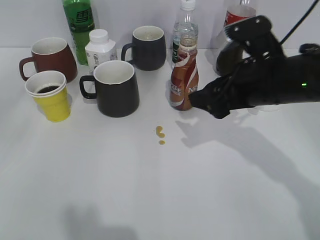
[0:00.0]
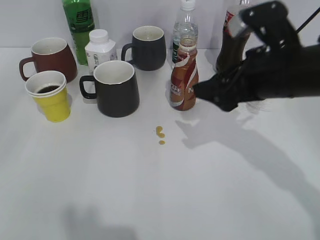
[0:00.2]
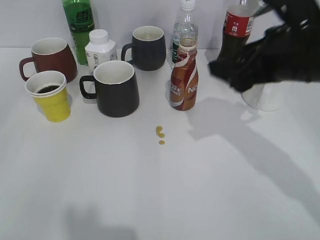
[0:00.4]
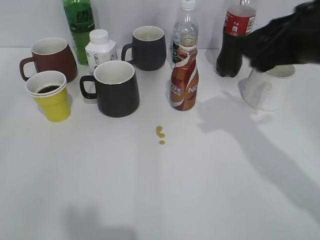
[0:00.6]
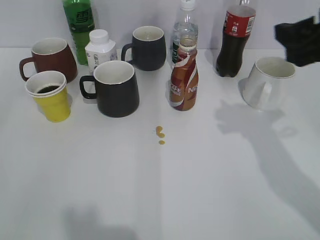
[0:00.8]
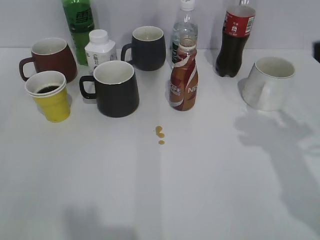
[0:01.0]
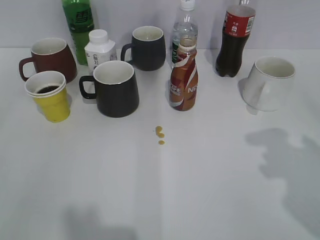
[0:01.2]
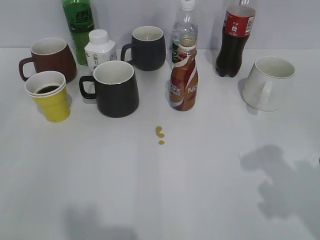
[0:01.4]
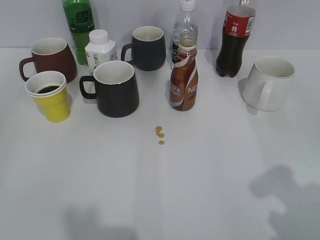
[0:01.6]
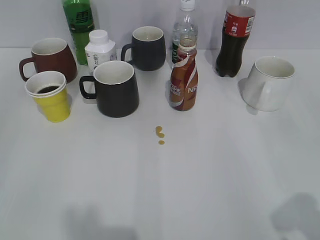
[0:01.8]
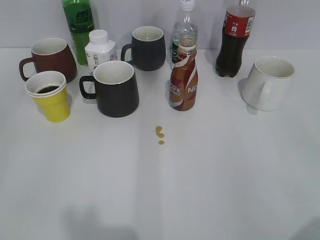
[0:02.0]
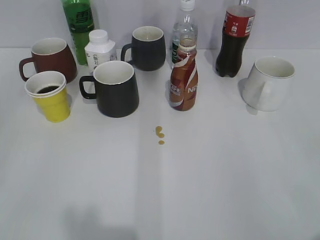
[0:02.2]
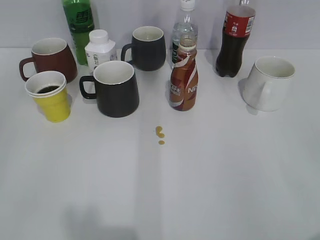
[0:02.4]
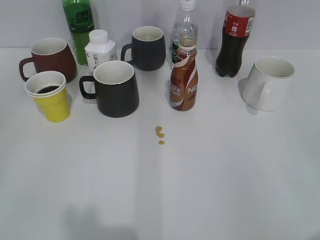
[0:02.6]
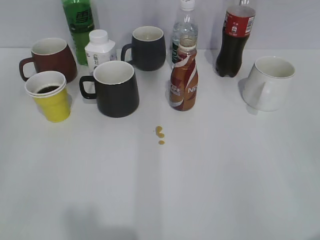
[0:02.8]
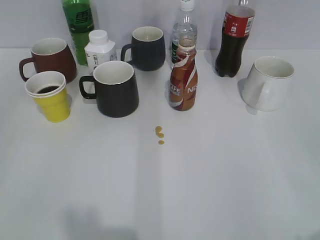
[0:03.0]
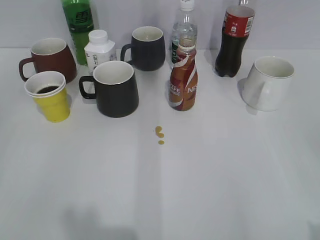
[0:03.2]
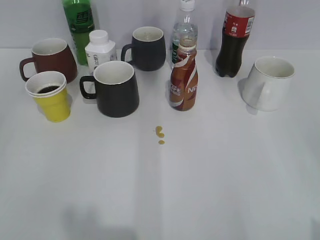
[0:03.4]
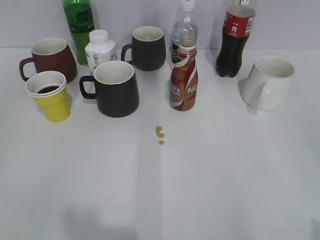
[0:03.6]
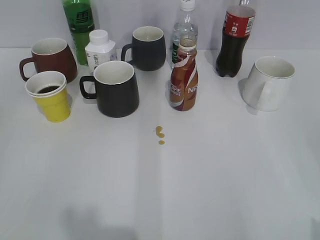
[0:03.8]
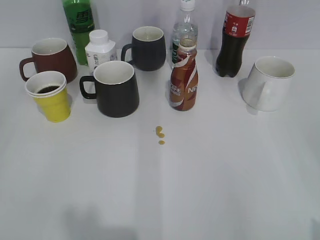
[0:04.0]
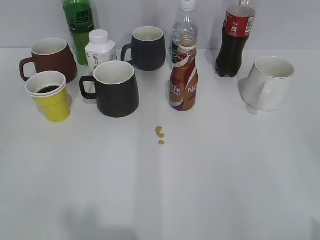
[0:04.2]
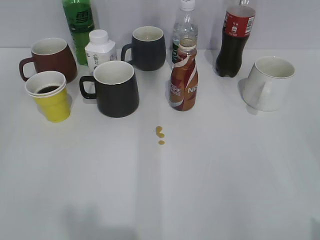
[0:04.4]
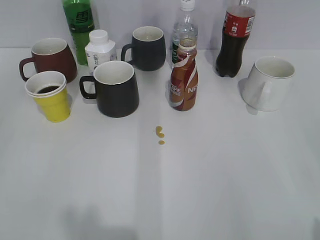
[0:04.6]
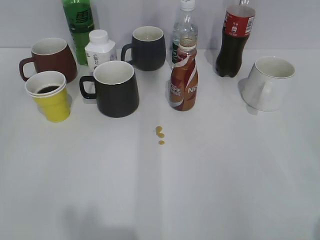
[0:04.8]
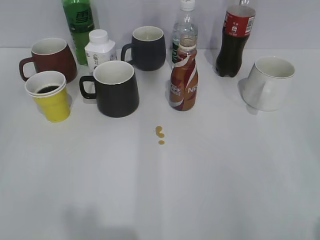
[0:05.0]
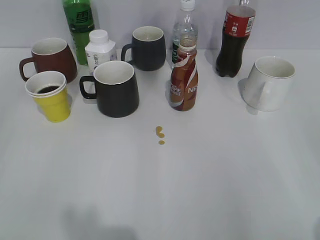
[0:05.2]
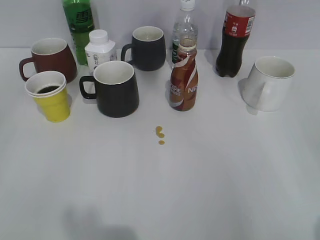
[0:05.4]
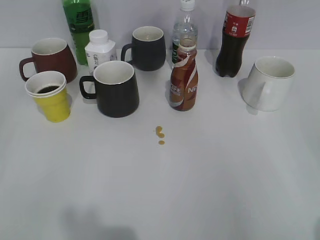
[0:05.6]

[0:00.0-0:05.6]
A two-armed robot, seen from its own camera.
0:00.0 to 0:01.4: The right gripper is displaced backward, to the right and upward by approximately 20 cm. Meanwhile the left gripper heads backward, covering roughly 10 cm.
0:01.4 to 0:02.8: The right gripper moves backward, roughly 15 cm.
0:04.2 to 0:05.6: Both grippers stay put.

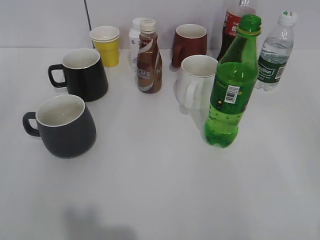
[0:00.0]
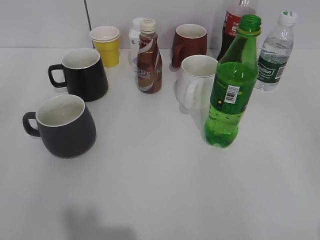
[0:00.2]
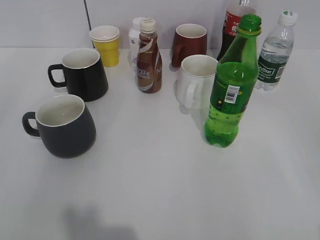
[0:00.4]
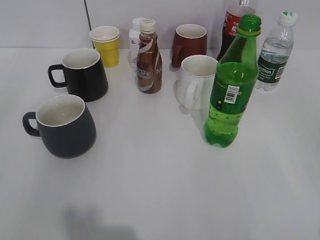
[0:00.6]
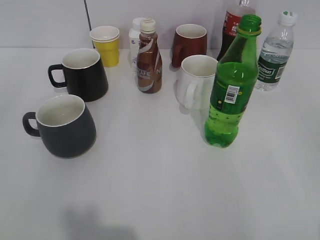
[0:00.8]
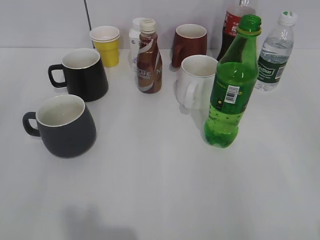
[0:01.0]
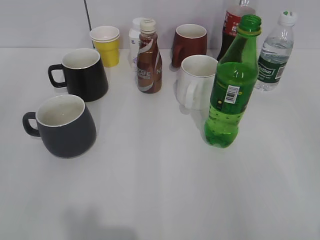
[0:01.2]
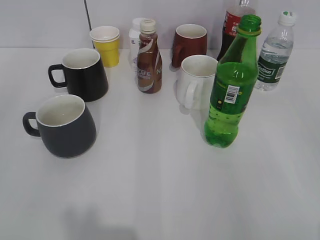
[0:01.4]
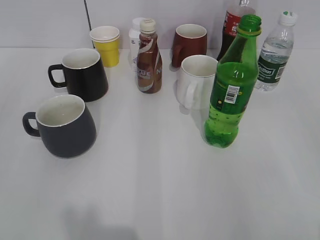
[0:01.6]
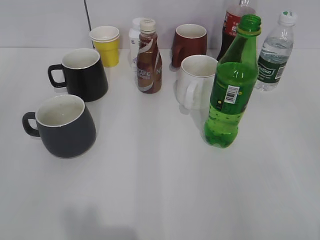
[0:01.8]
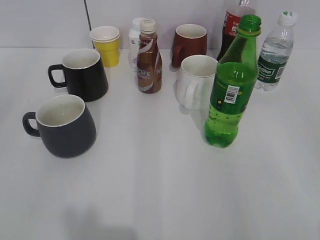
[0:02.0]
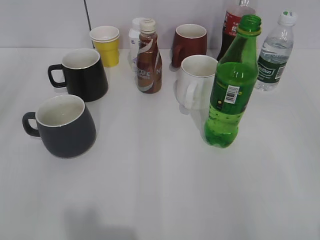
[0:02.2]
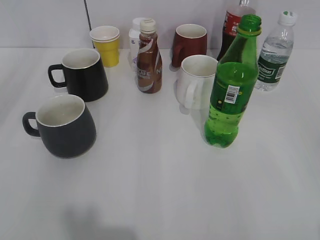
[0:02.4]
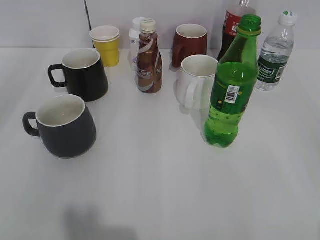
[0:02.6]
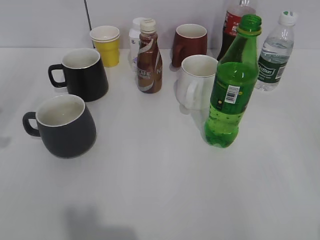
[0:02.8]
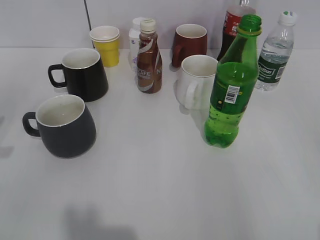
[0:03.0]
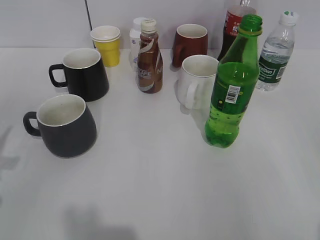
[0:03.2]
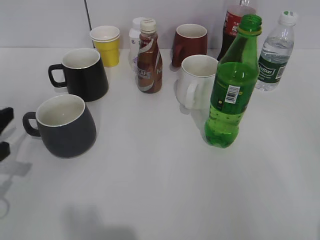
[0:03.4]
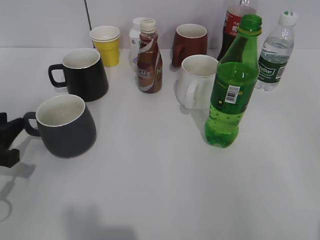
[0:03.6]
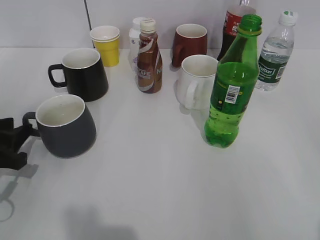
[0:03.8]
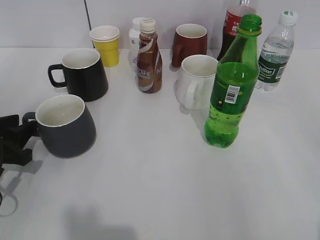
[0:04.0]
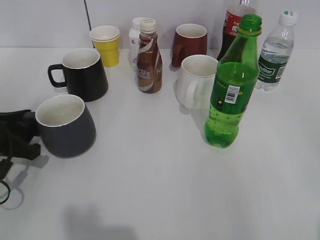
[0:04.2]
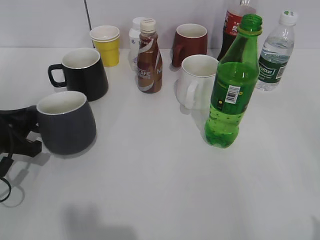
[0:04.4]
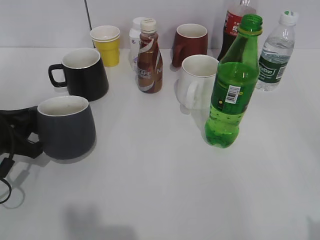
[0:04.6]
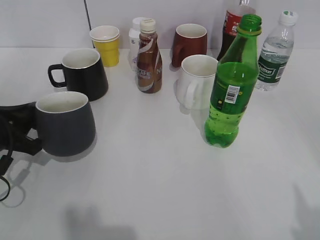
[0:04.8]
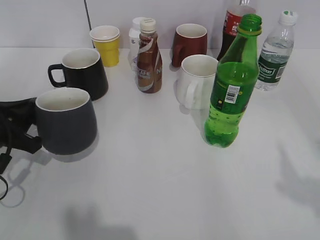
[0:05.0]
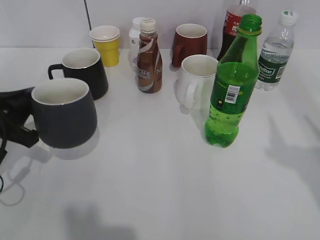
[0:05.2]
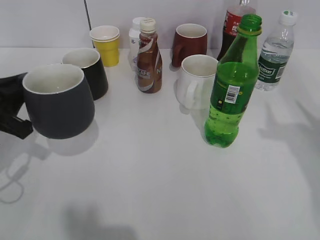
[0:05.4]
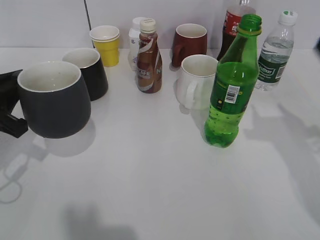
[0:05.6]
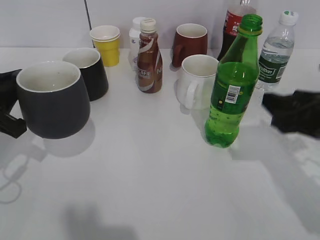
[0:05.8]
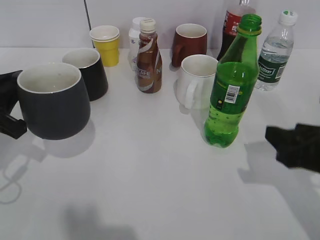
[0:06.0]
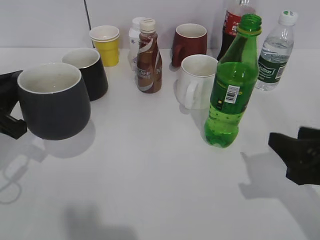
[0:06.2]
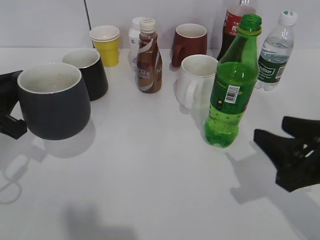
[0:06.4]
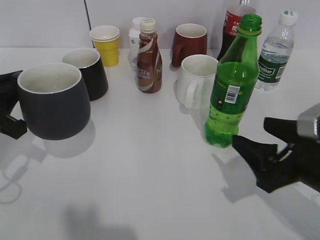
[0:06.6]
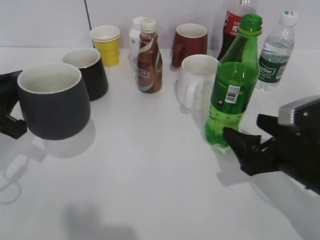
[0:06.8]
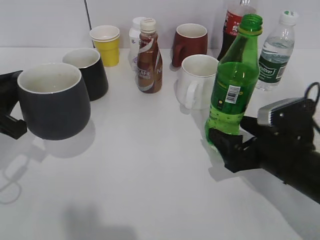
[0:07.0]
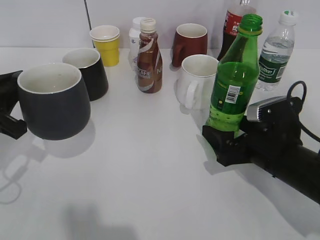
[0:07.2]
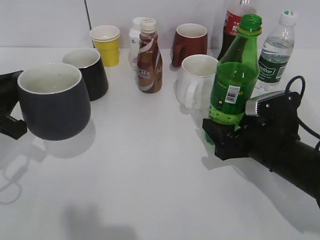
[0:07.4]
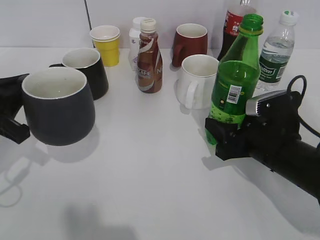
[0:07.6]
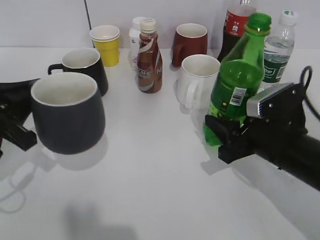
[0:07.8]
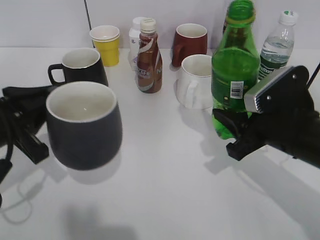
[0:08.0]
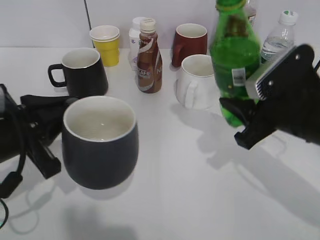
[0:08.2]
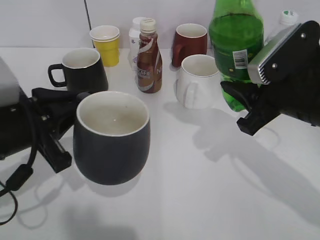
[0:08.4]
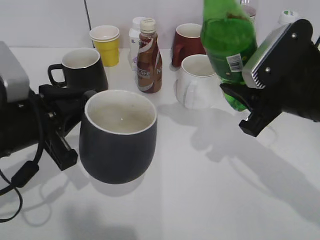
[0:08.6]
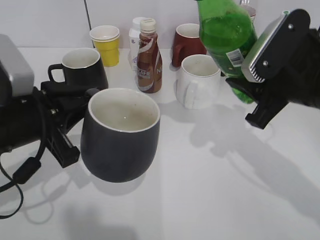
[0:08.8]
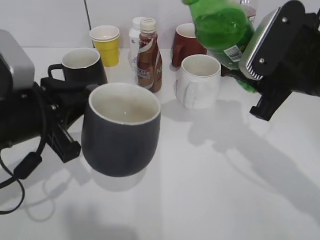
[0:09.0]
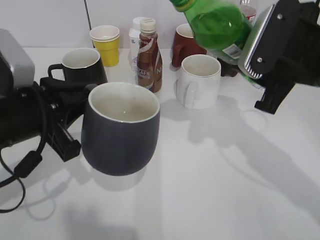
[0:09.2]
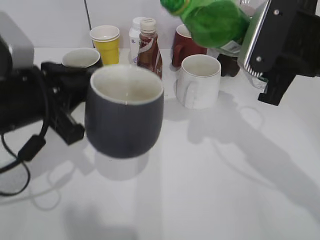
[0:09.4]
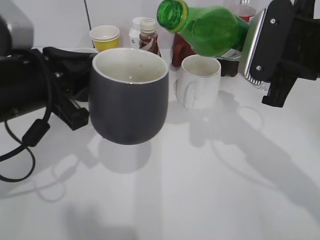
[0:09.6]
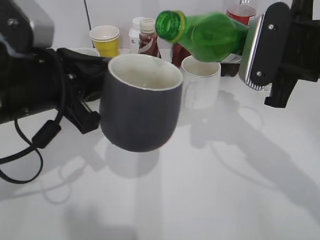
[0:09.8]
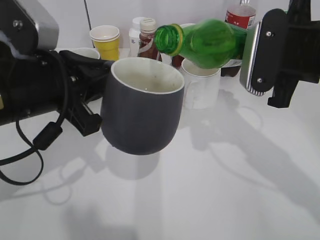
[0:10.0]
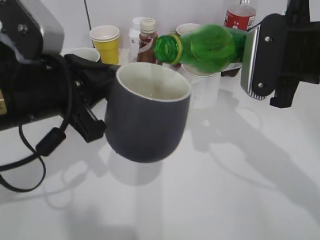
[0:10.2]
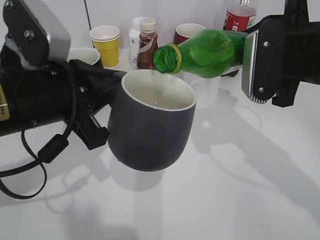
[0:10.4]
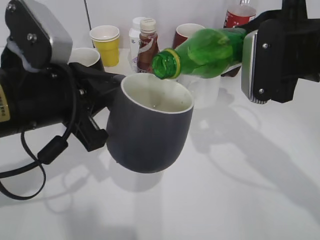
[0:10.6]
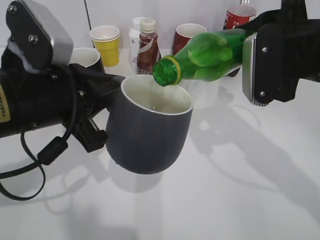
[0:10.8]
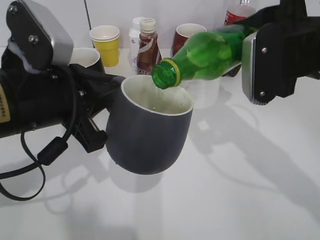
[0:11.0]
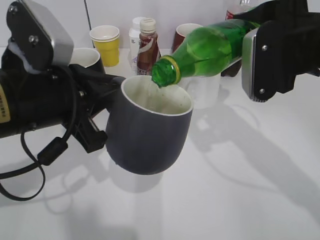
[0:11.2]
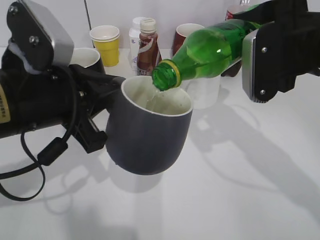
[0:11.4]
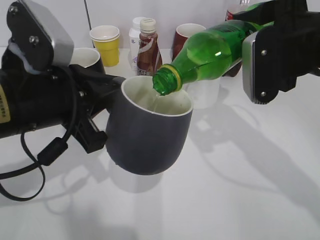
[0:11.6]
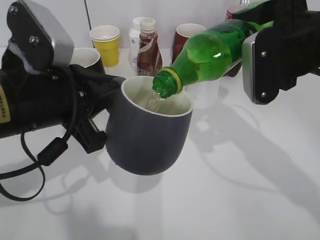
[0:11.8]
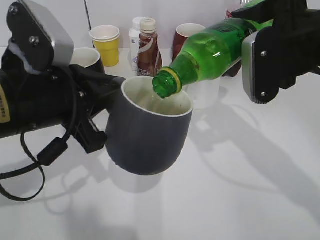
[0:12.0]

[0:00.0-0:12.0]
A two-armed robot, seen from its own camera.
Step, 0:02.0 to 0:04.4: Grasp the grey cup with left gripper.
Step, 0:04.6 to 0:05.8: Lift the grey cup with left gripper.
Step, 0:06.0 to 0:07.4: Grasp the bottle with sprite with right gripper.
0:03.0 to 0:04.4: The left gripper heads downward and forward, covering about 10 cm, and closes.
0:04.4 to 0:06.0: The left gripper is displaced upward by roughly 5 cm. The right gripper shifts some 20 cm forward and downward, and closes its fingers.
0:06.0 to 0:07.6: The right gripper moves downward, to the left and forward, some 10 cm, and opens and closes again.
0:07.6 to 0:09.0: The left gripper shifts some 10 cm to the right. Meanwhile the right gripper shifts about 15 cm upward, and closes up.
0:10.4 to 0:12.0: The grippers make only small movements.

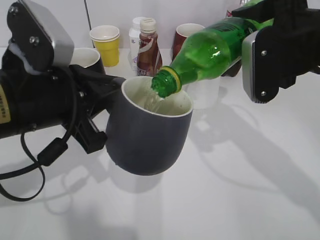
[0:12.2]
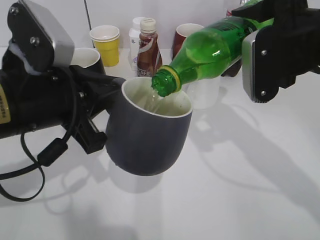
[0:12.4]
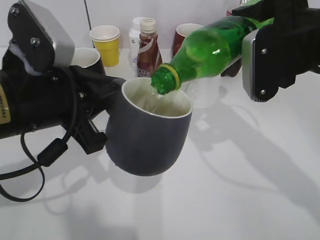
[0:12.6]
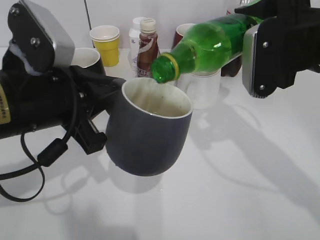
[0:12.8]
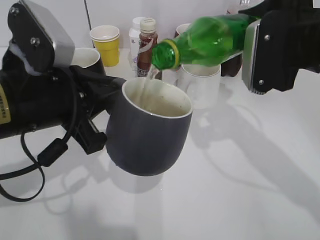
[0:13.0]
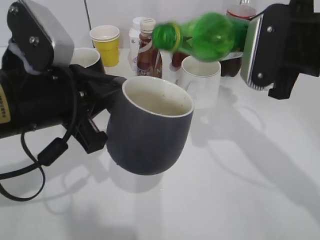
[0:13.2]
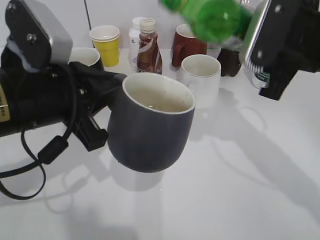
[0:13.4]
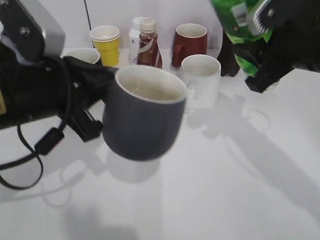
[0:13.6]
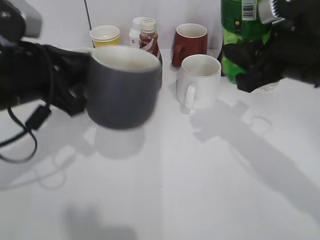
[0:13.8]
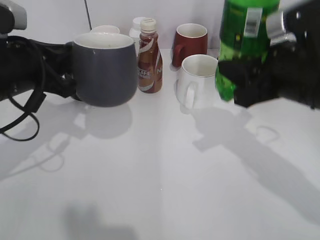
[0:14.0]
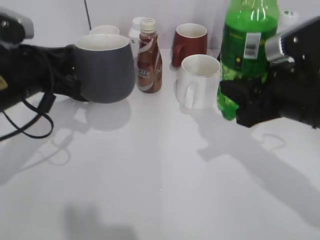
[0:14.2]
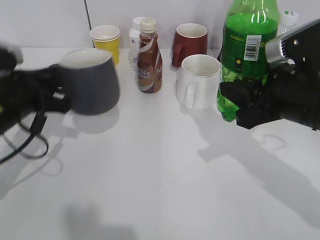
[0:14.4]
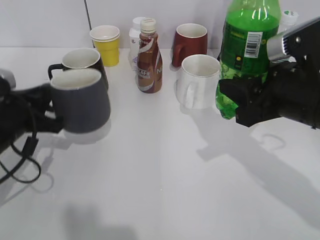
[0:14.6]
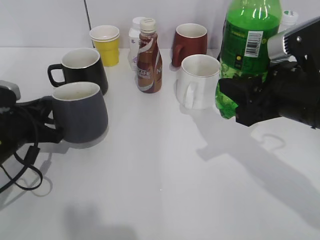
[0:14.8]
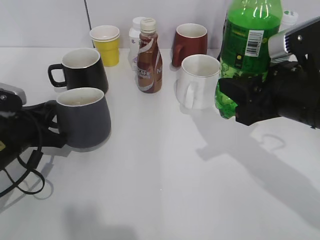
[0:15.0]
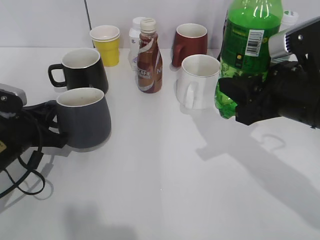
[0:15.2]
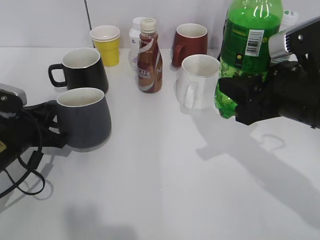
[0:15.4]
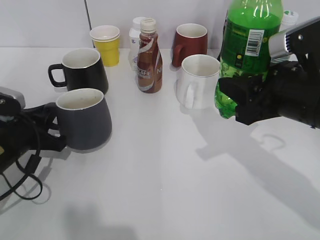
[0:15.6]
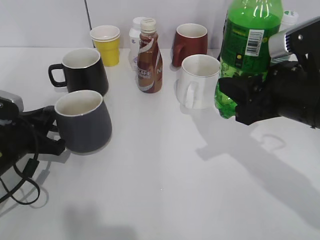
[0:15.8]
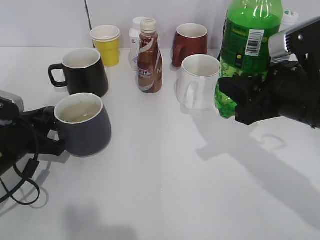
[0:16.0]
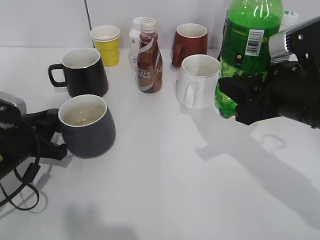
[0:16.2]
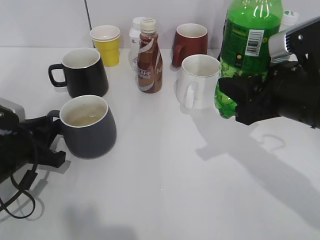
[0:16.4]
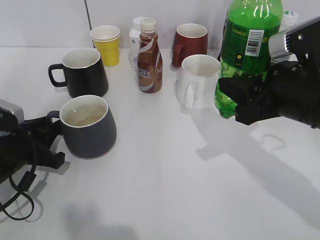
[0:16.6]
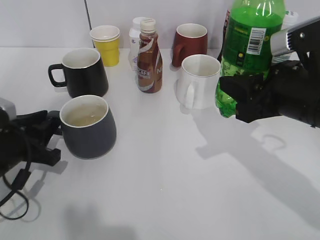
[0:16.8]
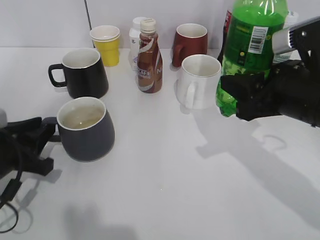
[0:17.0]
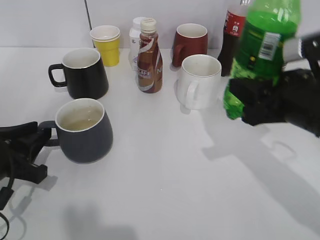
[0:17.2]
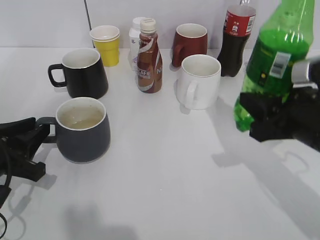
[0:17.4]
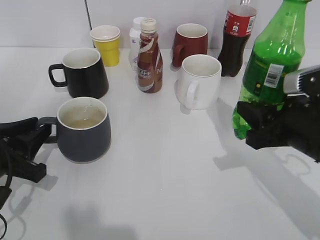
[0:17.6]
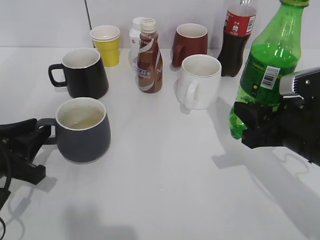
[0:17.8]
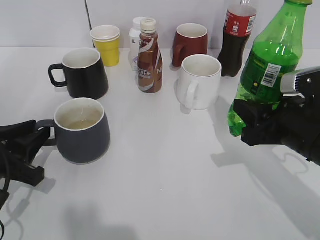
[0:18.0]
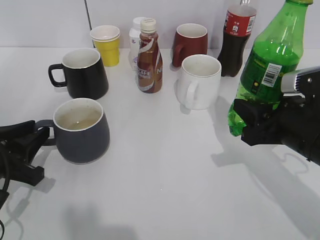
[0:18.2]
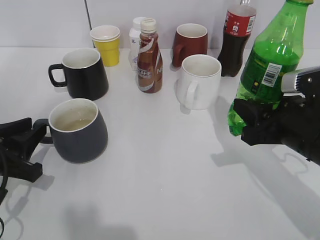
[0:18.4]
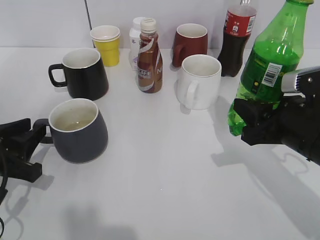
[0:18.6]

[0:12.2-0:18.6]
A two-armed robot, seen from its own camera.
Step, 0:13.4 to 0:18.2: Place the grey cup on the table with left gripper.
0:13.8 to 0:15.4: The left gripper goes some 15 cm downward and to the left.
0:15.4 to 0:17.0: The left gripper opens up.
0:17.0 to 0:18.6: The right gripper moves downward, some 5 cm.
